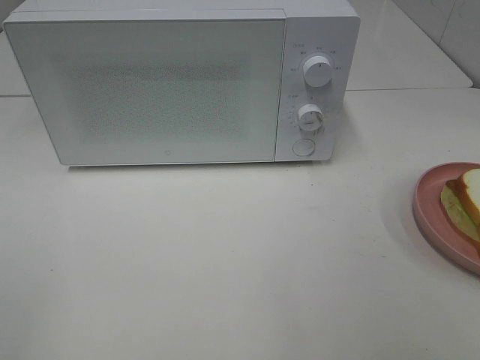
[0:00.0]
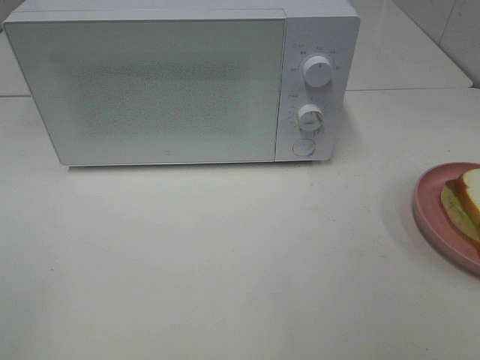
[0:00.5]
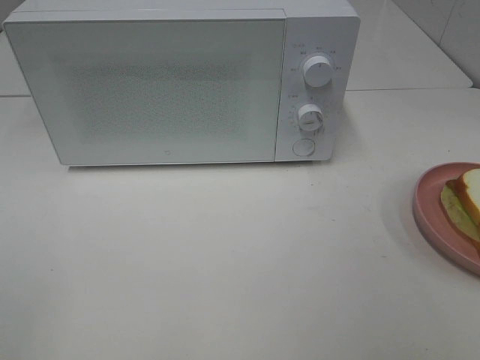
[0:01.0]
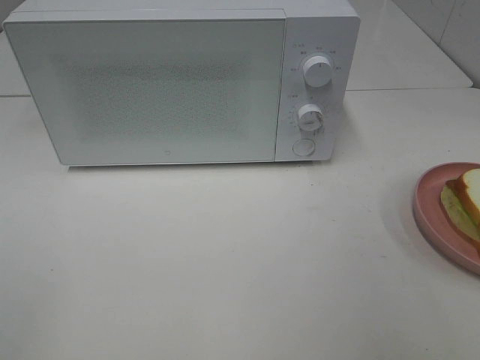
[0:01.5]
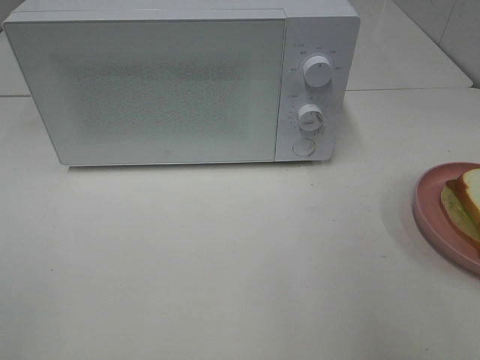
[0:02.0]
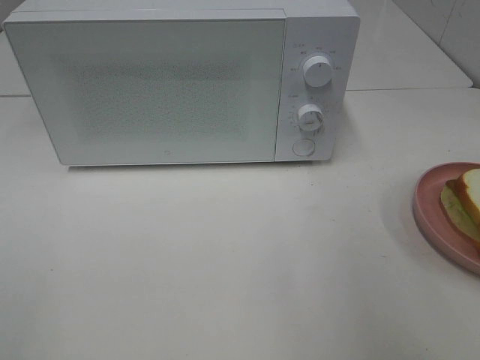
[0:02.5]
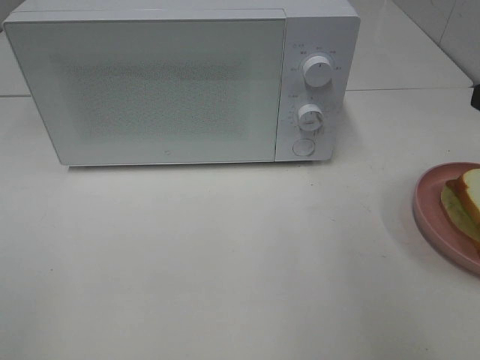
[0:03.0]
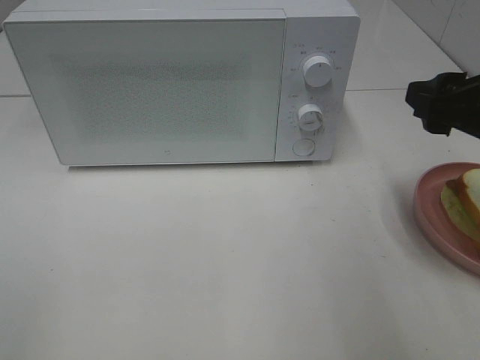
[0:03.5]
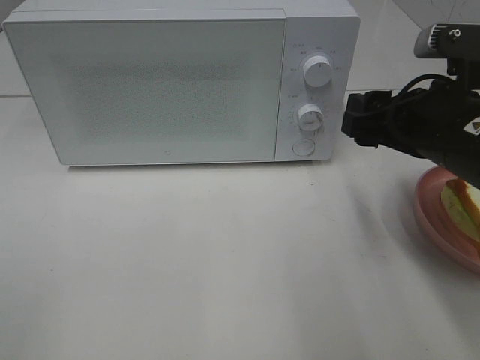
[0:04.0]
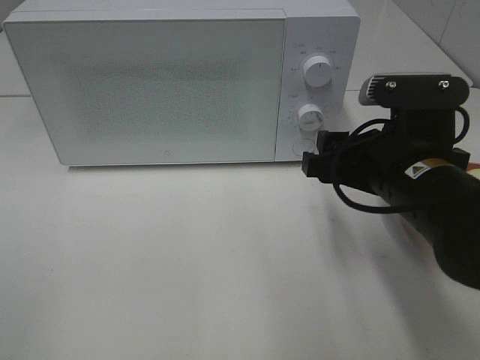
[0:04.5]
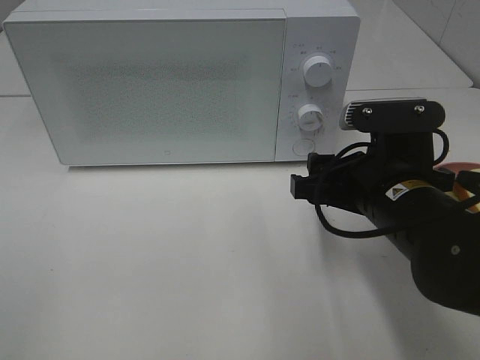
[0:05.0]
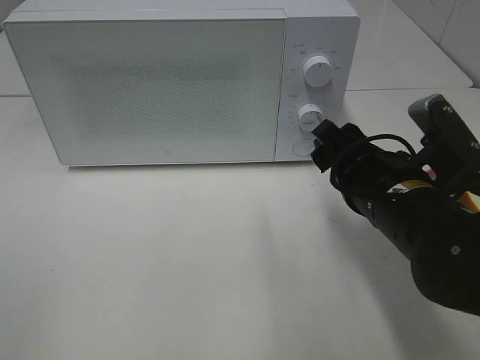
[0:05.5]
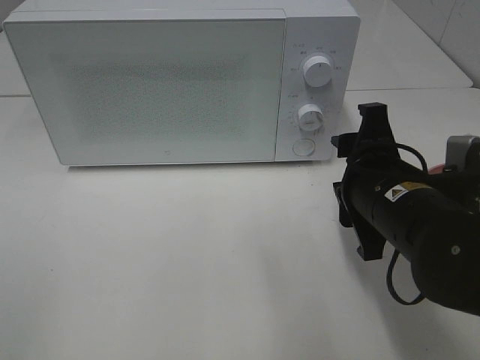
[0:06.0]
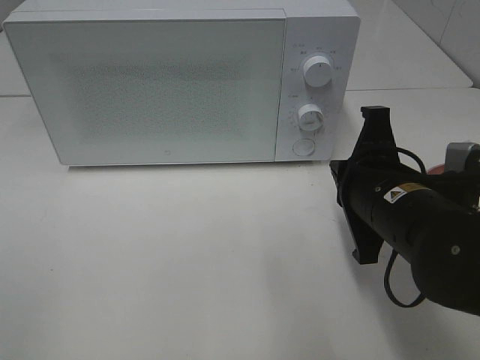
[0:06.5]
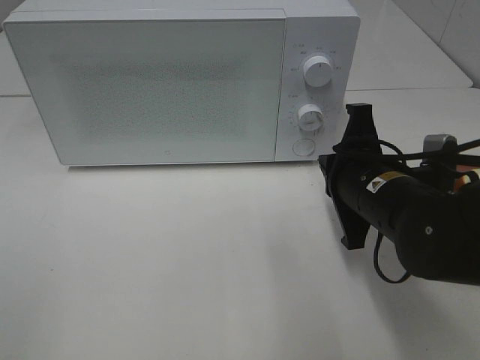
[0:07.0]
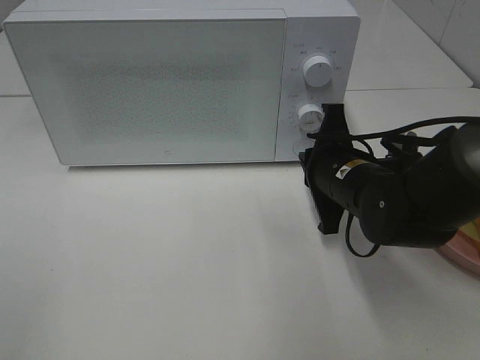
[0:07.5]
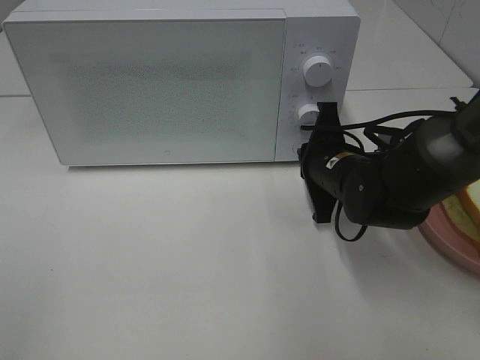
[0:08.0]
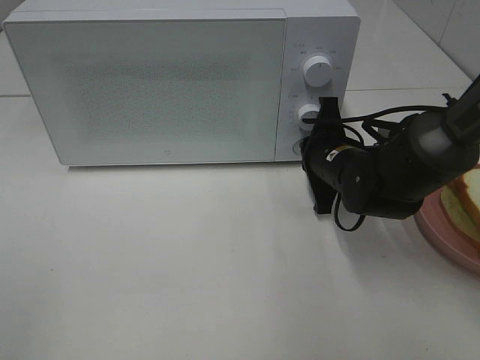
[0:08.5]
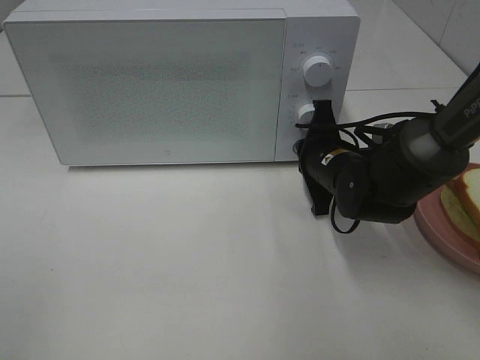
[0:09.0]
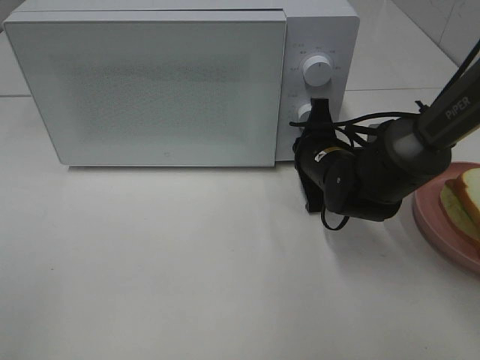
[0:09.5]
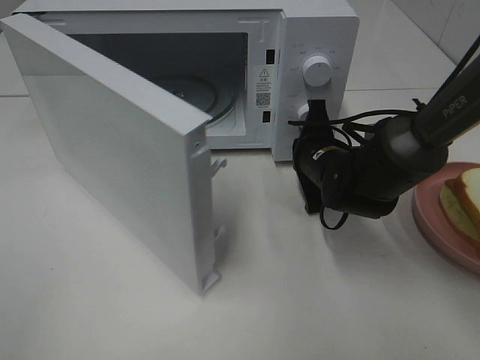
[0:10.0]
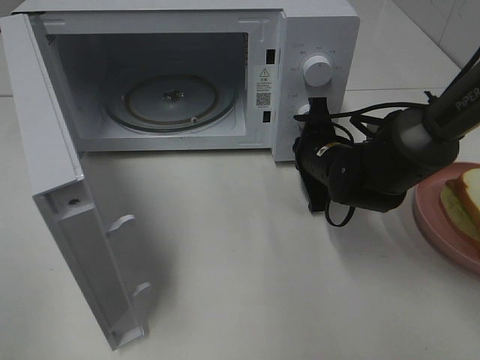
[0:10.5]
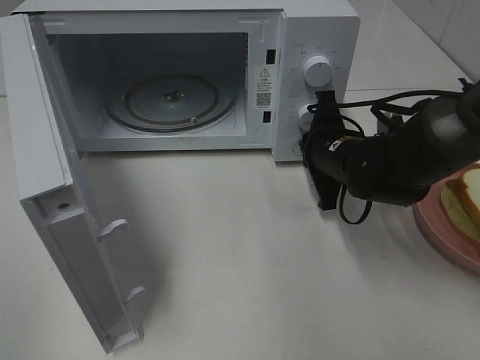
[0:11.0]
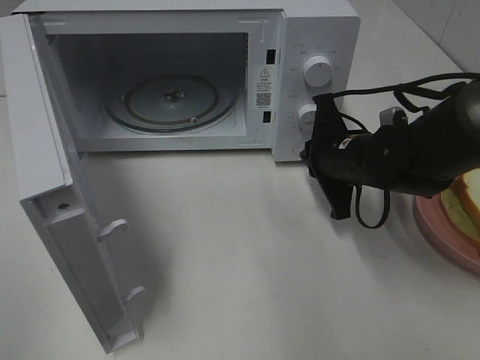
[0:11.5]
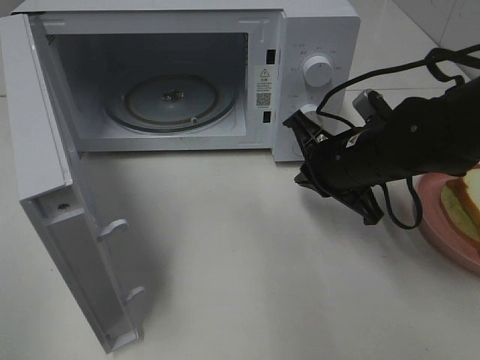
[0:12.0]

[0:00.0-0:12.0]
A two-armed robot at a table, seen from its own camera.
Task of the whole recording: Heat Sandwich.
Step, 0:00.0 to 0:11.0: Right hand: press the switch.
0:02.0 to 0:04.0: The right gripper is displaced forward, to the left and downward by some 15 cm.
0:04.0 to 0:06.0: The right gripper goes about 5 cm downward.
0:06.0 to 0:08.0: The right gripper goes about 10 cm forward and downward, and closes.
0:10.0 to 0:12.0: The right gripper goes about 10 cm backward and upward.

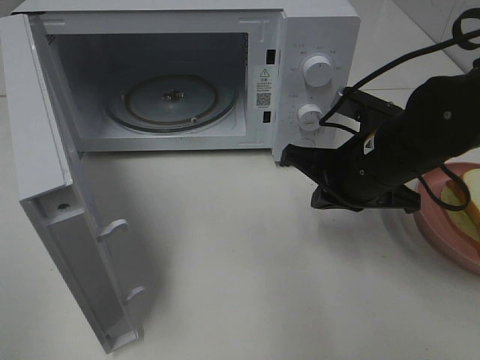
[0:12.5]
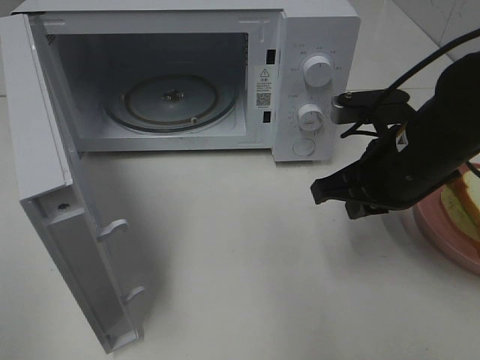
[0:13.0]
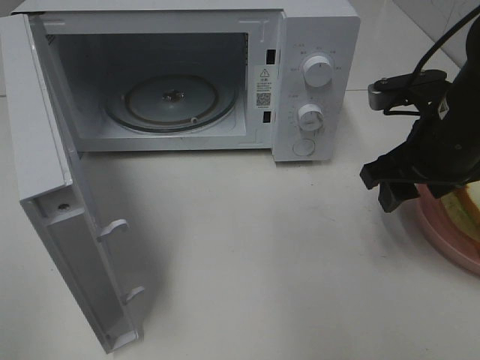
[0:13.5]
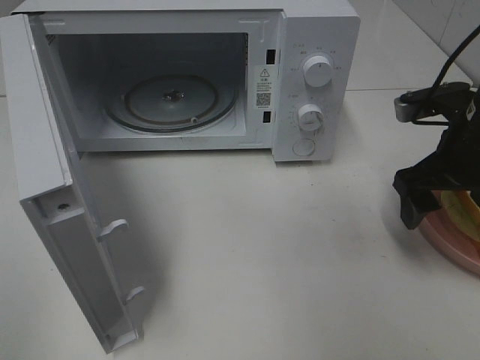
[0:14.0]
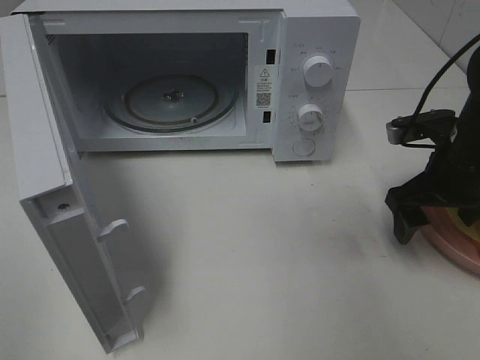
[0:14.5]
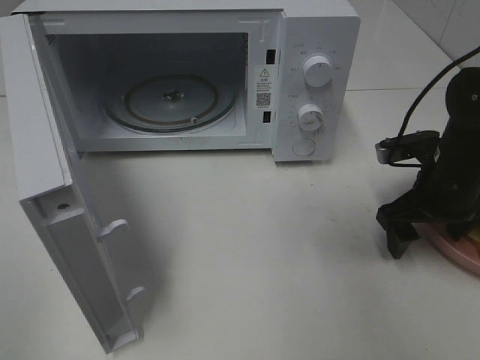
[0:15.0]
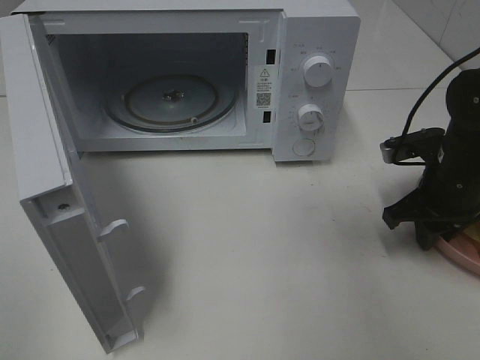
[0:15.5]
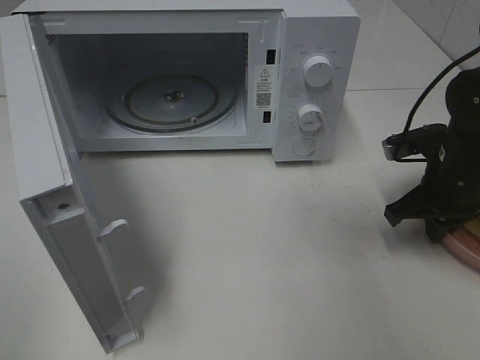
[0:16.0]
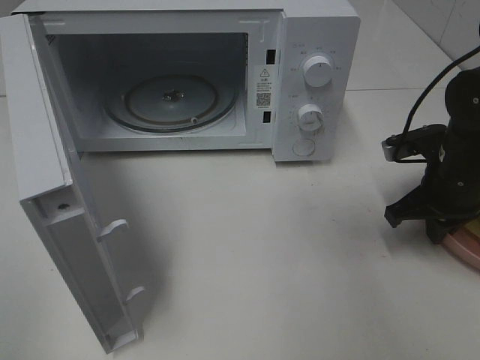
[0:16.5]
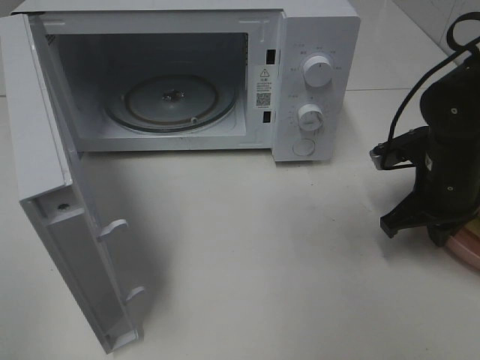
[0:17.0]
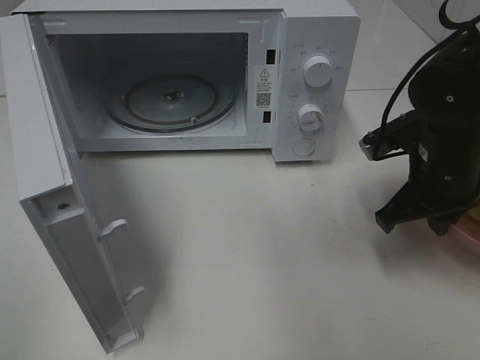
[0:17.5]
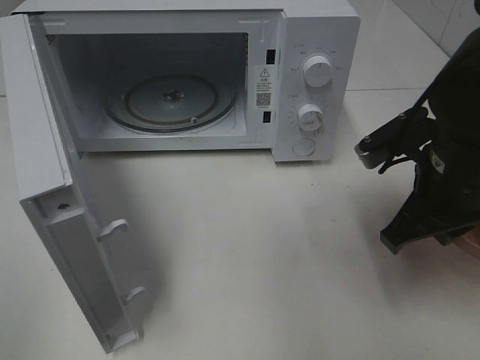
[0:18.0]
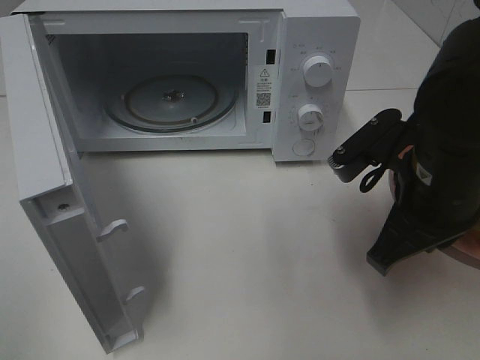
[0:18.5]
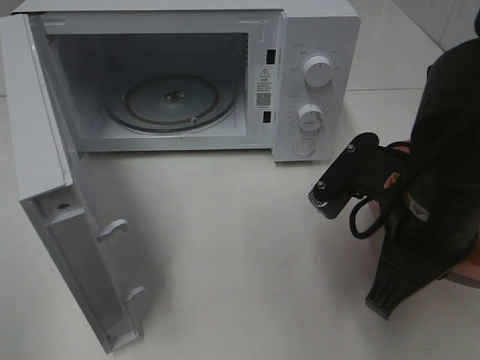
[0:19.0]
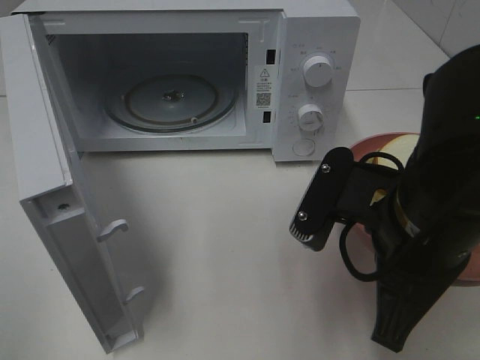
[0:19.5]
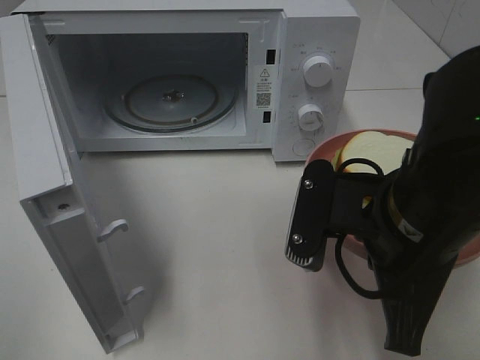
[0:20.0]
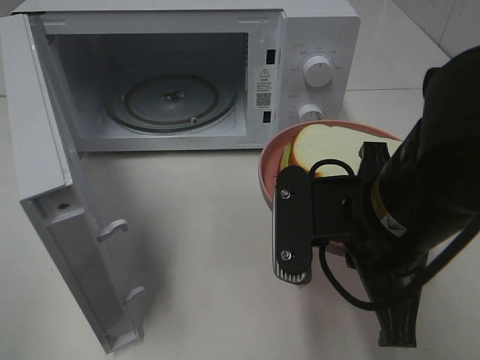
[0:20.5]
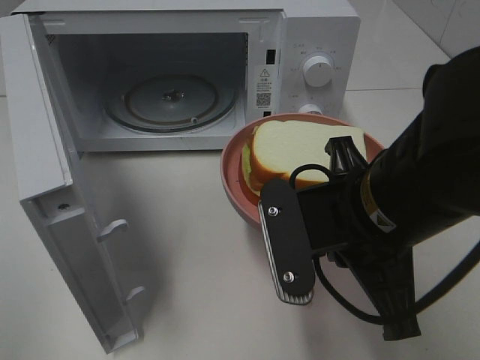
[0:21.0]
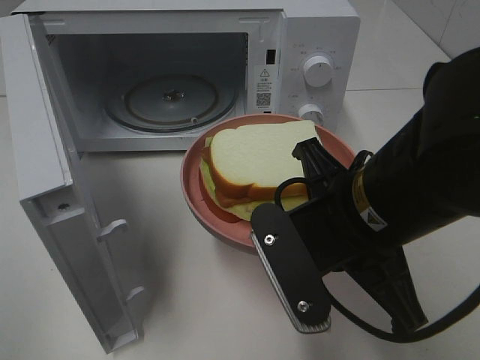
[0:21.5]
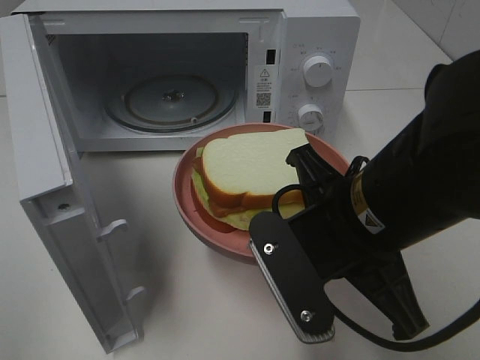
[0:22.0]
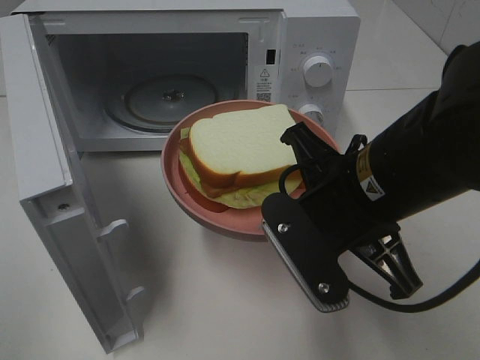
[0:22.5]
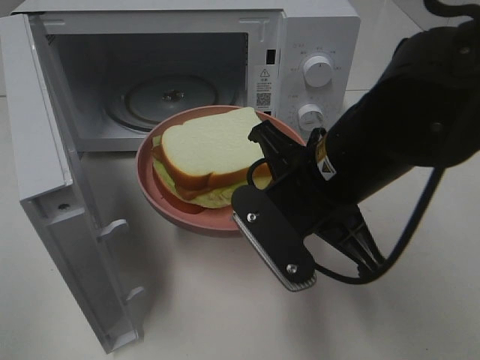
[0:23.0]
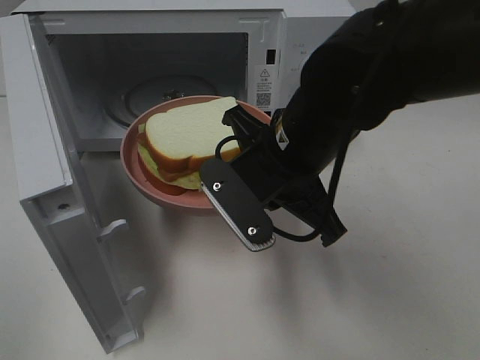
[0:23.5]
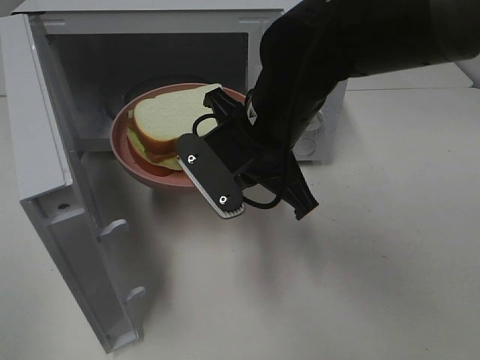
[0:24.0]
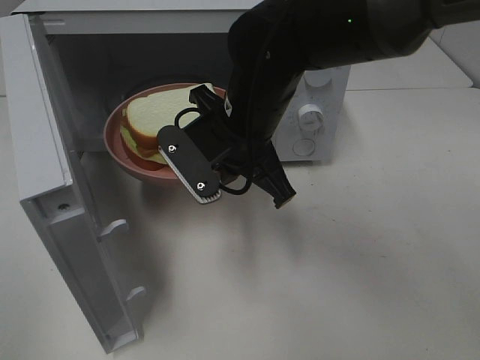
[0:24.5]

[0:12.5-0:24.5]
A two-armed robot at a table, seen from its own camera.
Task of the whole recording: Heat Sandwich.
Step, 0:12.5 to 0:16.0: Right hand: grab the plate with the sandwich.
0:12.5 to 0:14.5: The right gripper is displaced to the right by some 10 cm, and opens.
0:14.5 to 0:16.5: The right gripper closes its fingers.
0:16.5 to 0:18.5: The right gripper heads to the left, backward and upward, covering approximately 15 cm.
0:18.5 to 0:20.5: The right gripper goes roughly 5 cm to the left.
0:22.5 to 0:24.5: The right gripper travels forward and to the left by roughly 15 cm.

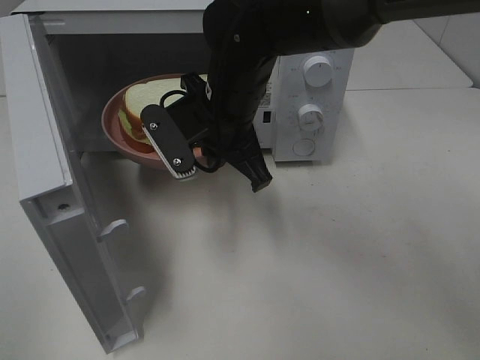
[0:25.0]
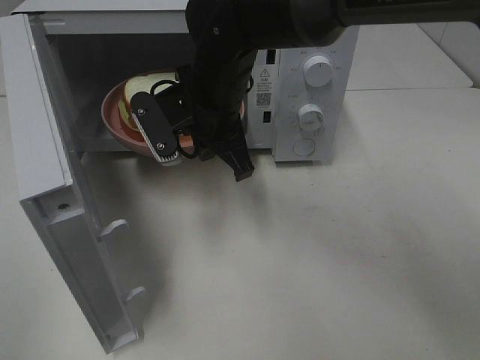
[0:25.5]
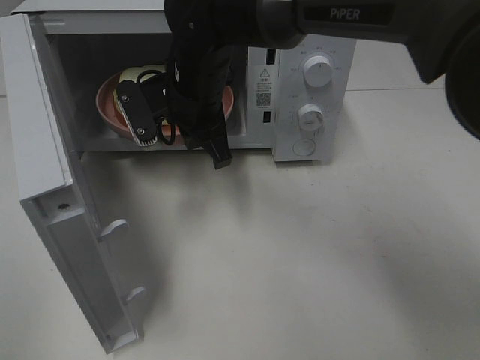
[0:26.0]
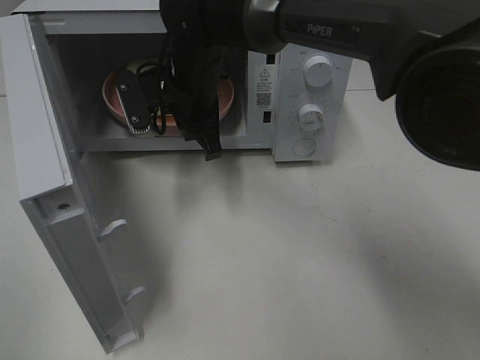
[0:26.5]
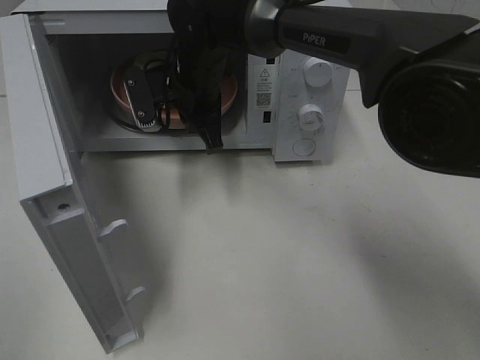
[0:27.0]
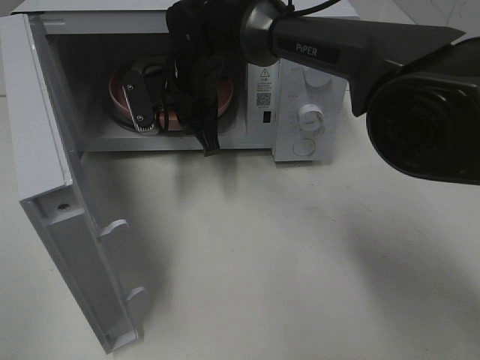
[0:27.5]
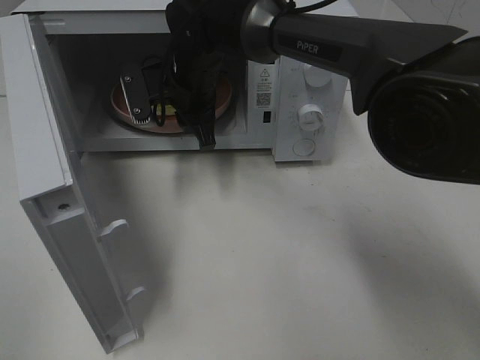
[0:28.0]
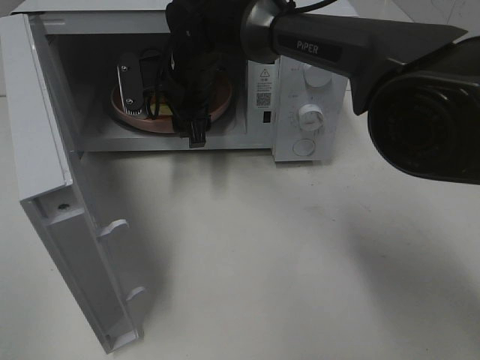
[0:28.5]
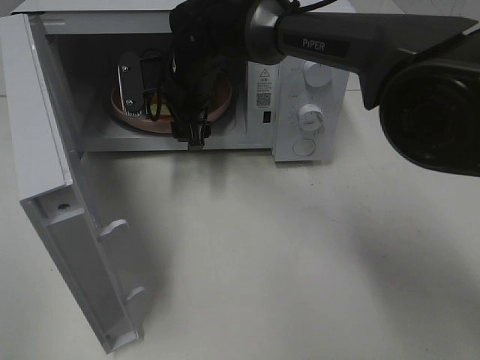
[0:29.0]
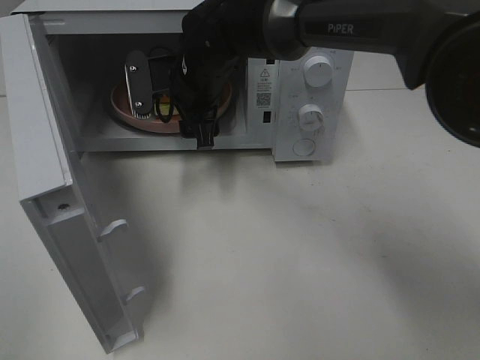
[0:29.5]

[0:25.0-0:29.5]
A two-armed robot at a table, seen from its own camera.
Task of the whole recording: Heat Sandwich.
0:25.0 to 0:27.0: The right gripper shifts approximately 10 cm forward.
0:27.0 to 0:29.5: The right gripper opens.
